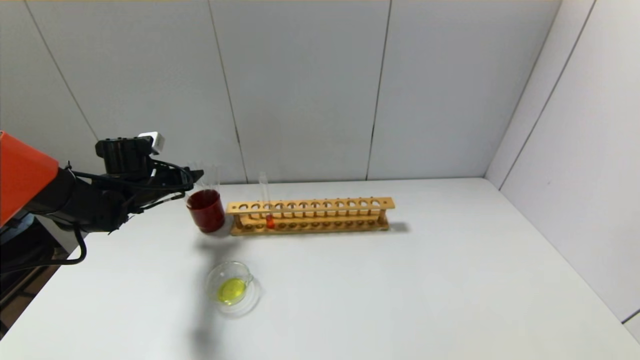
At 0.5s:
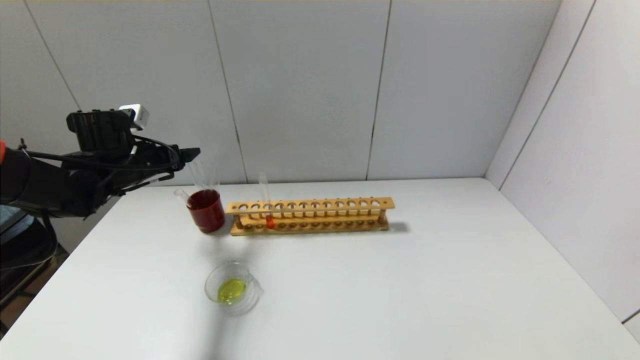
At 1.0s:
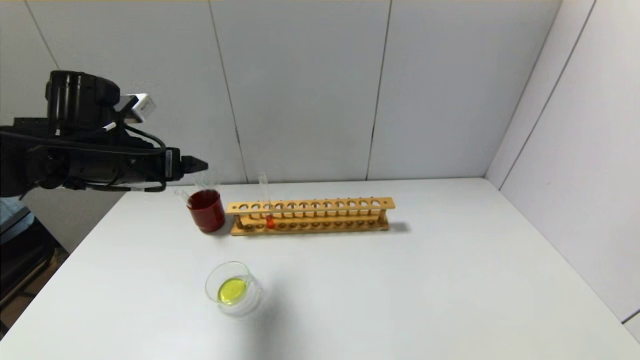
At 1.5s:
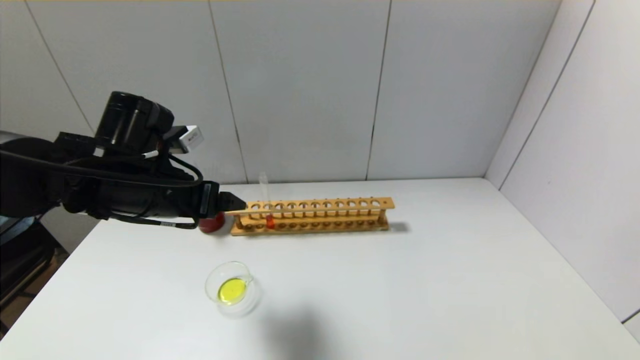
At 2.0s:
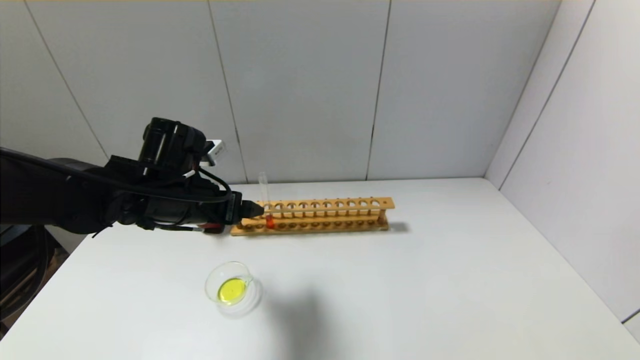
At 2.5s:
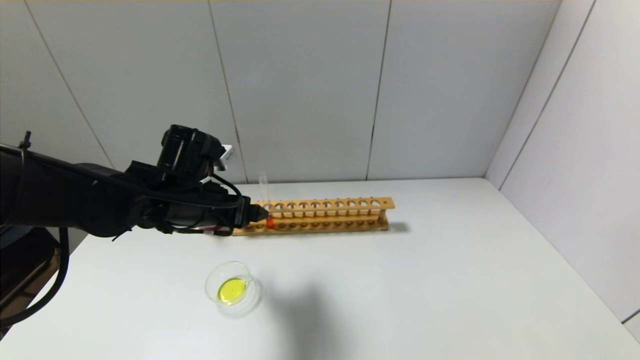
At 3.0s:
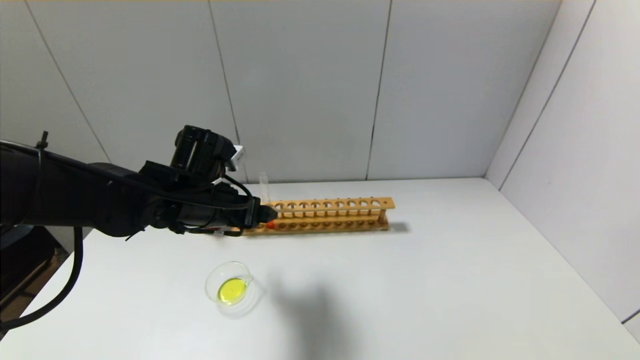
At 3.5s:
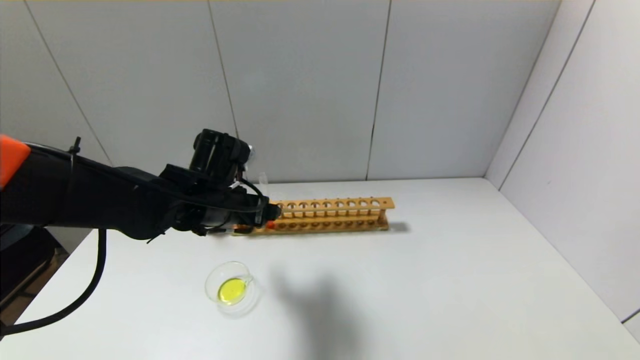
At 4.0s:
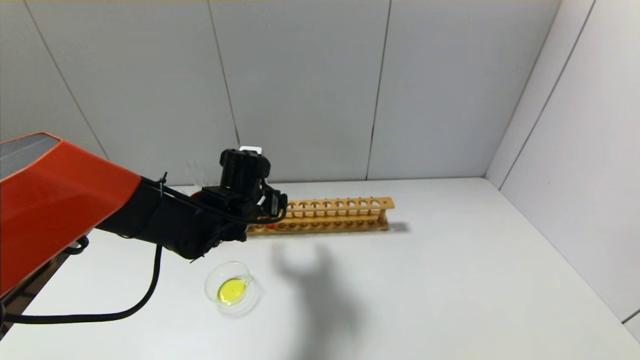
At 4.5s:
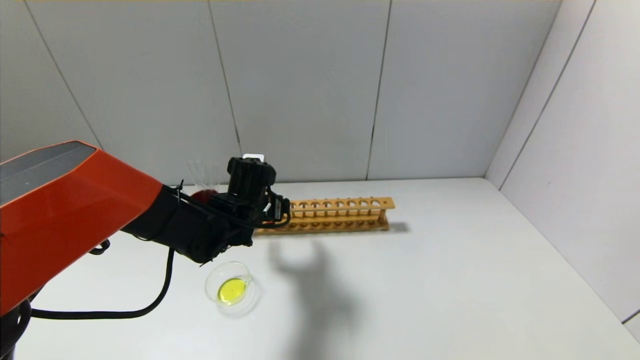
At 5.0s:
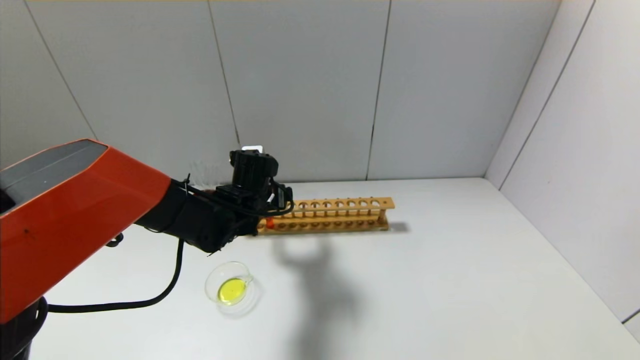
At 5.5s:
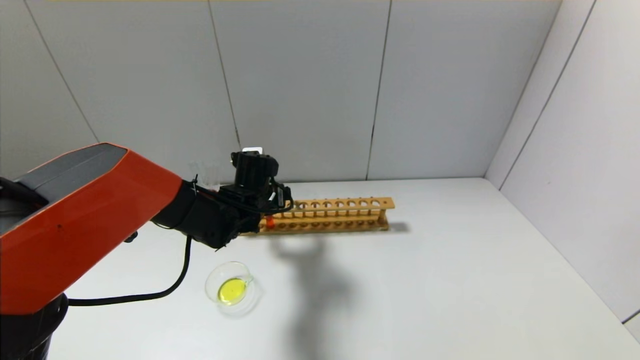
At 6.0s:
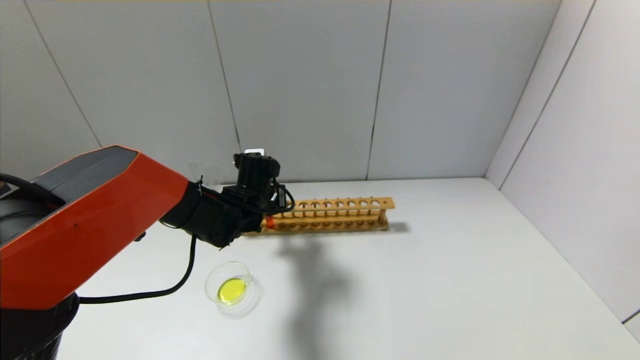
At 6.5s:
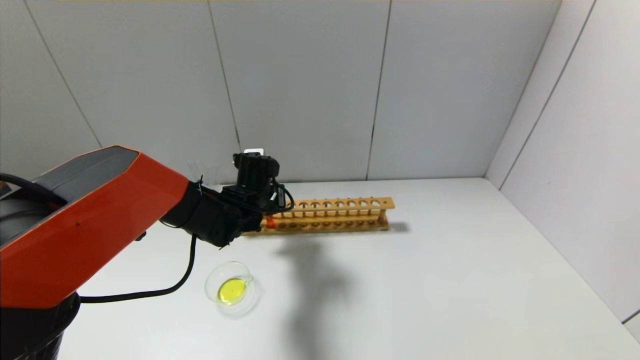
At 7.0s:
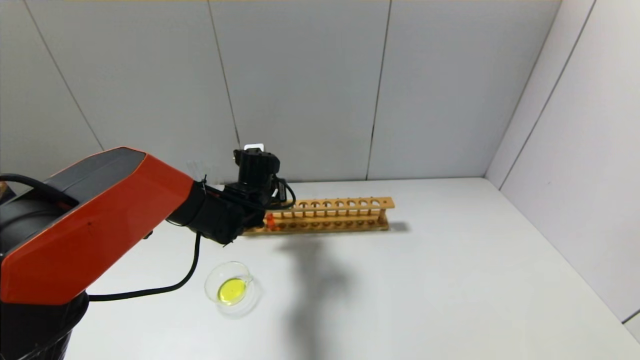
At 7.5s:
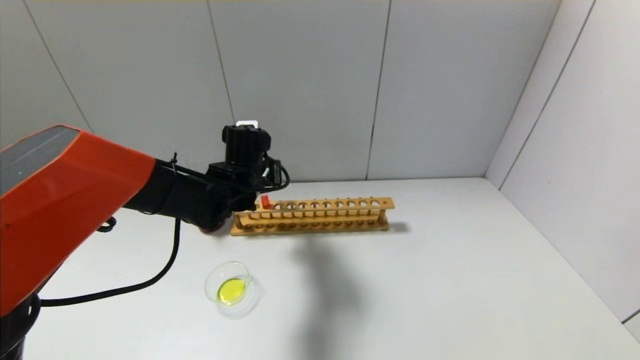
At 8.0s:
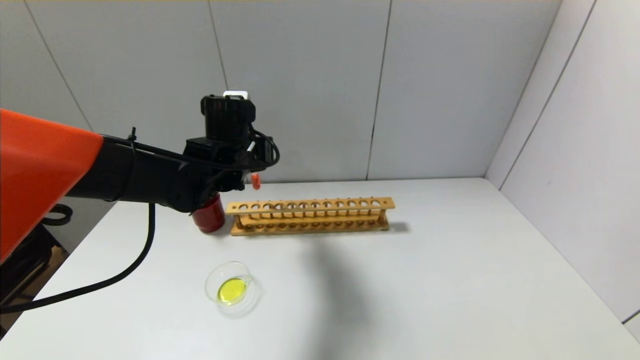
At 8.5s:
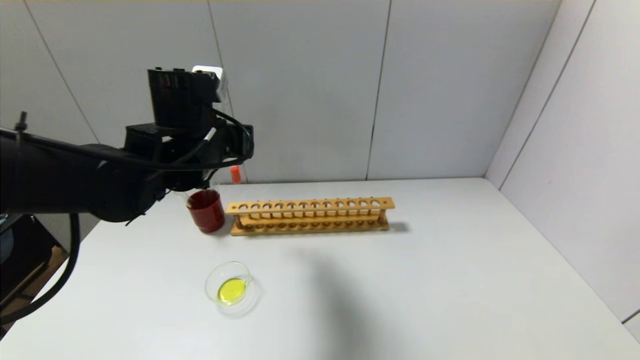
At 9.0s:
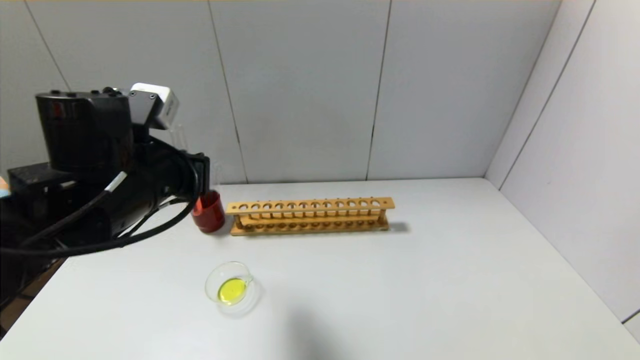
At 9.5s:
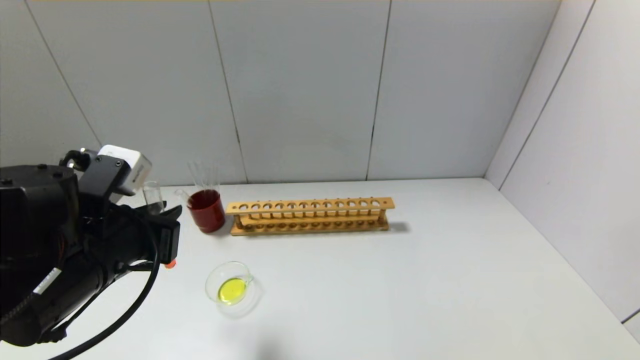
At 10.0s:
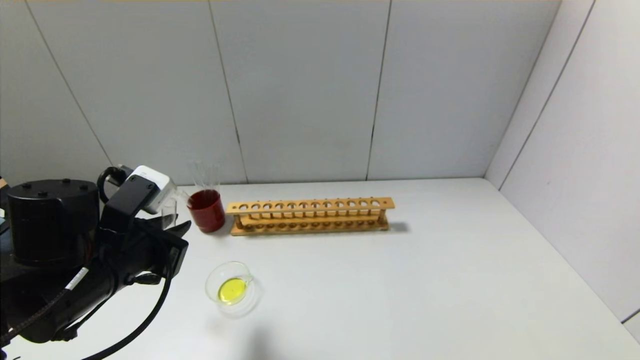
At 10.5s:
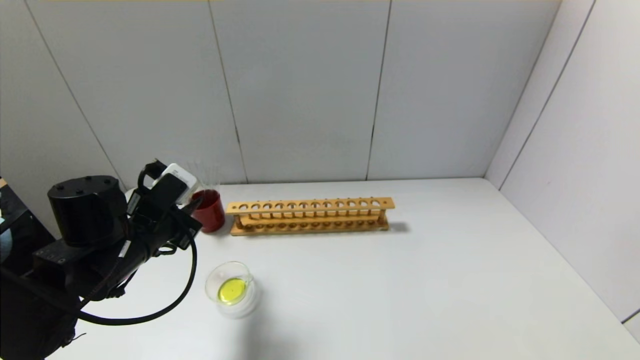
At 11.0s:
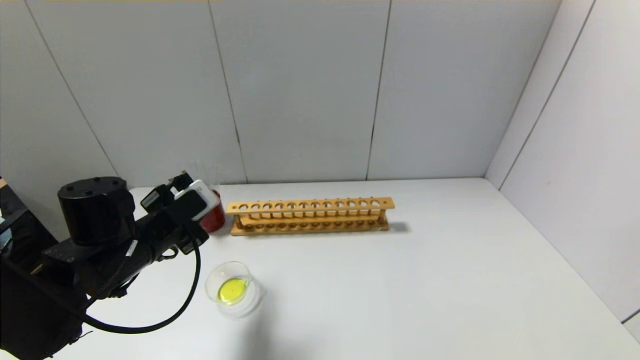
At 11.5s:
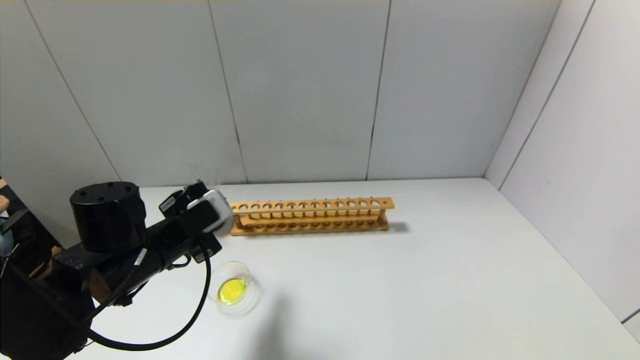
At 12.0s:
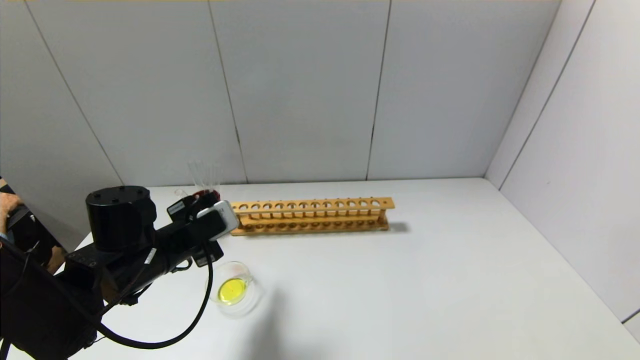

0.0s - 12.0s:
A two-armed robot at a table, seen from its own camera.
Step, 0.0s - 6.0s: Grasp the red reagent with the left gripper.
0.0s - 2.0s: The left gripper is displaced to the right, backward and upward by some 20 cm.
2.0s - 4.0s: The left gripper shifts approximately 10 cm to the right, downward and forward.
4.0s - 6.0s: The left gripper changes place by roughly 5 cm, and closes.
6.0s - 8.0s: The left gripper goes approximately 10 cm upward.
8.0s - 10.0s: The left gripper travels backward and to the left by about 20 cm.
10.0s - 12.0s: The left gripper is displaced forward by about 5 cm.

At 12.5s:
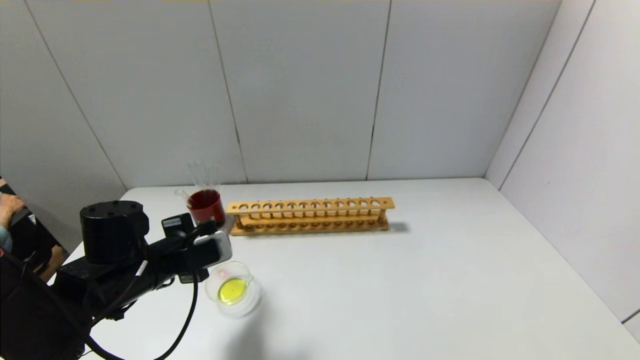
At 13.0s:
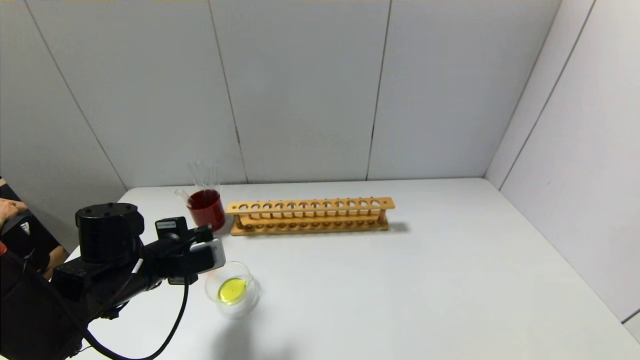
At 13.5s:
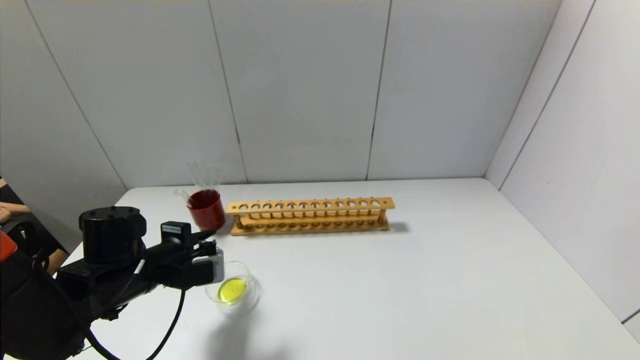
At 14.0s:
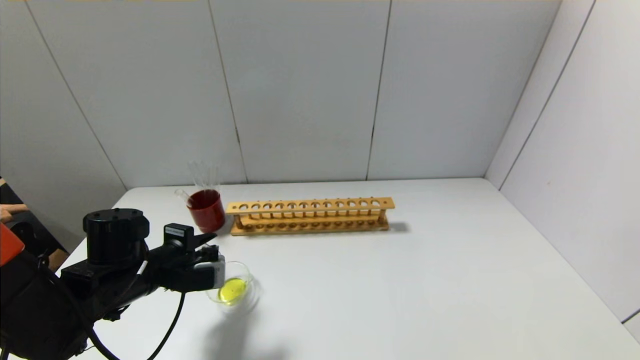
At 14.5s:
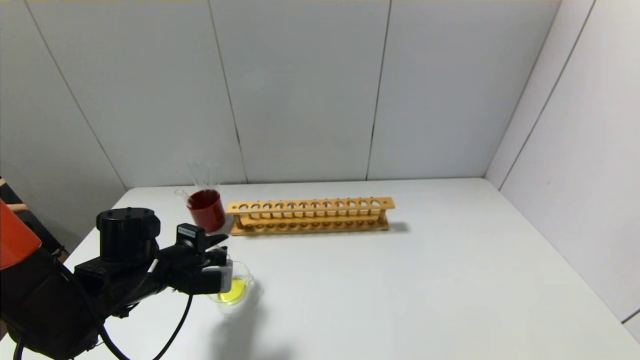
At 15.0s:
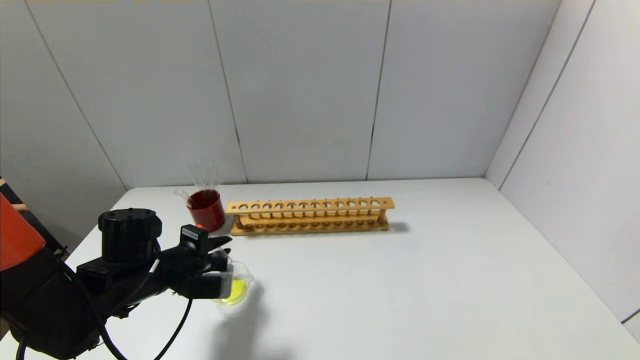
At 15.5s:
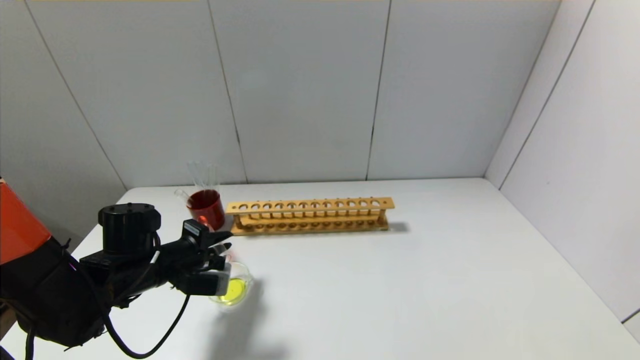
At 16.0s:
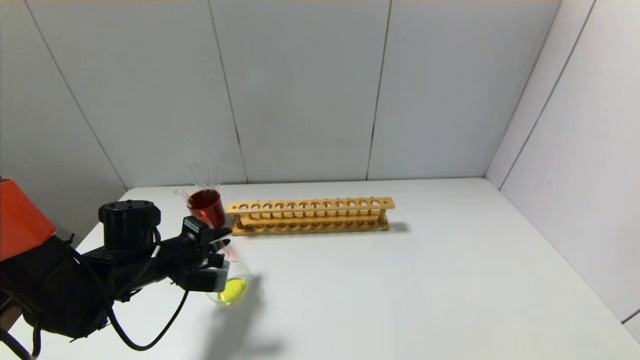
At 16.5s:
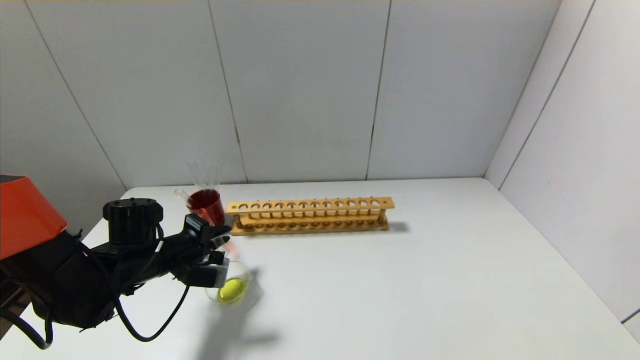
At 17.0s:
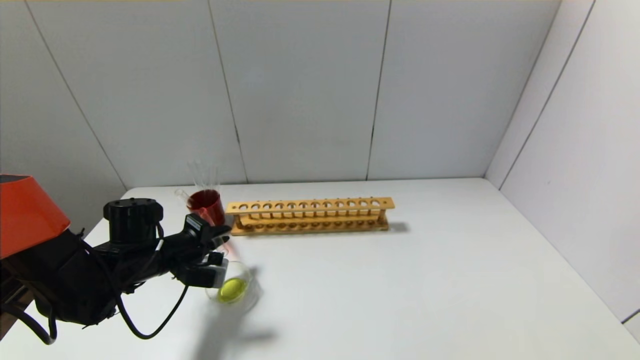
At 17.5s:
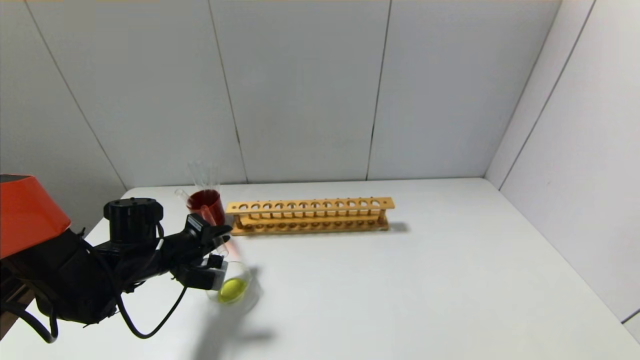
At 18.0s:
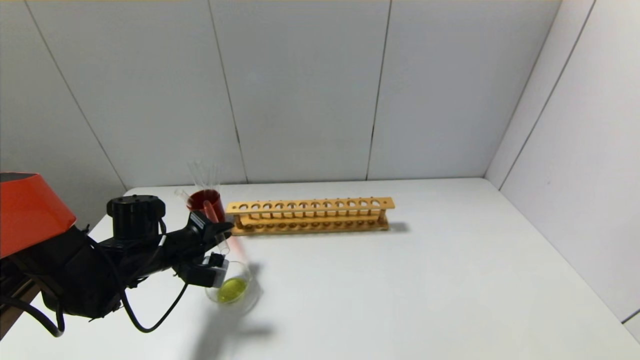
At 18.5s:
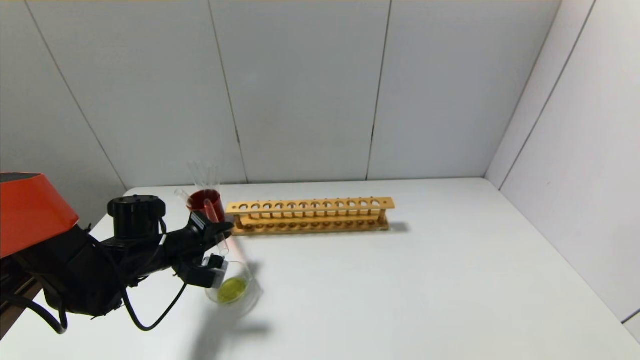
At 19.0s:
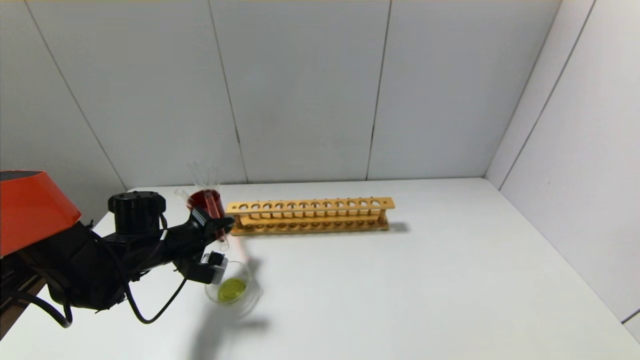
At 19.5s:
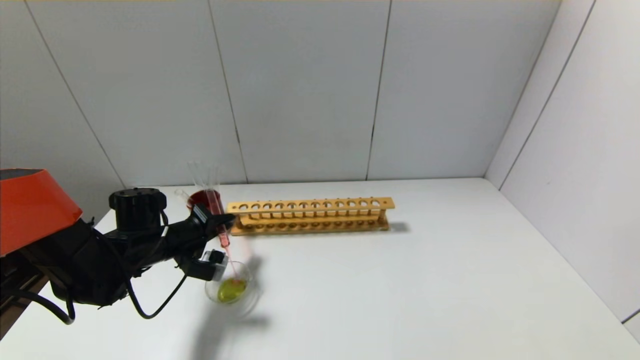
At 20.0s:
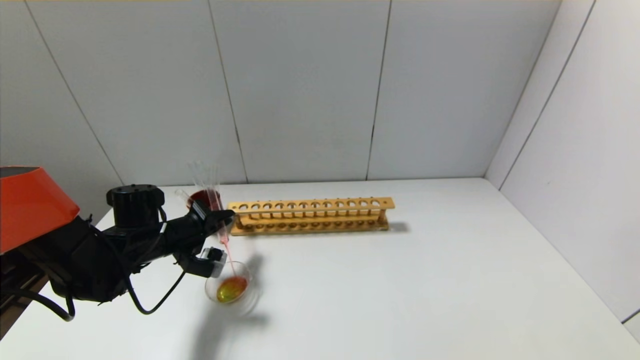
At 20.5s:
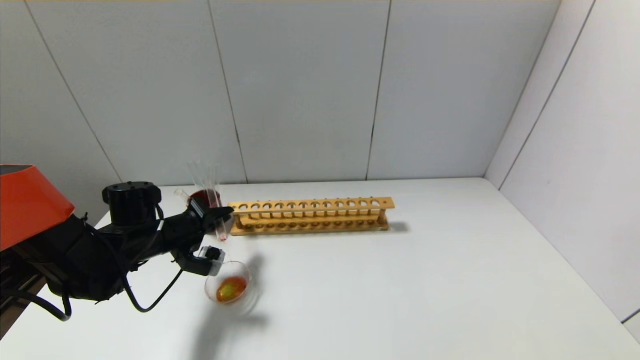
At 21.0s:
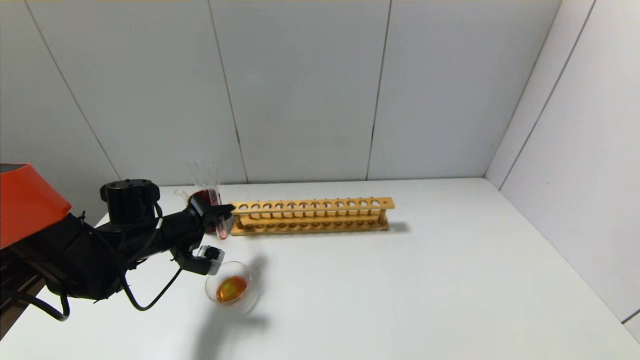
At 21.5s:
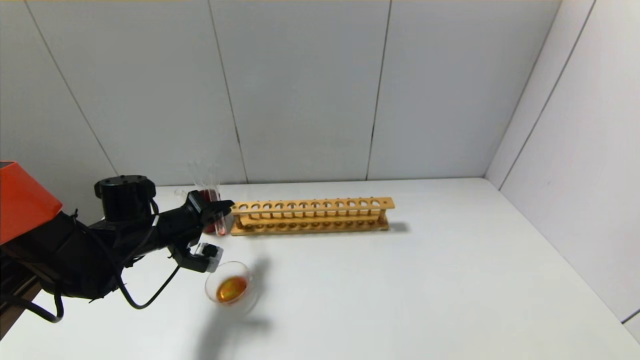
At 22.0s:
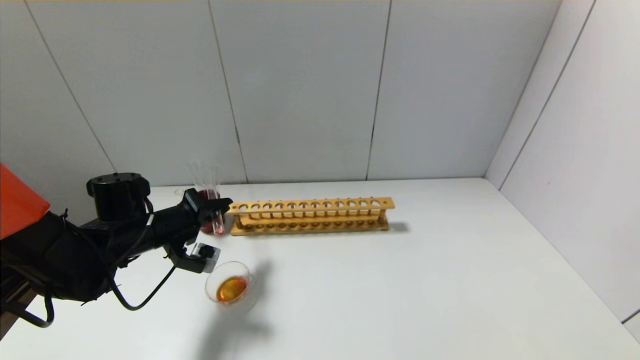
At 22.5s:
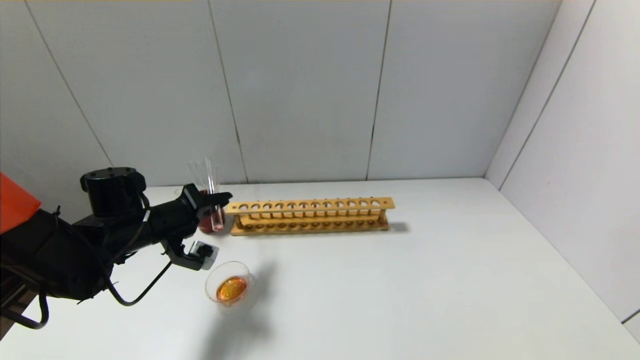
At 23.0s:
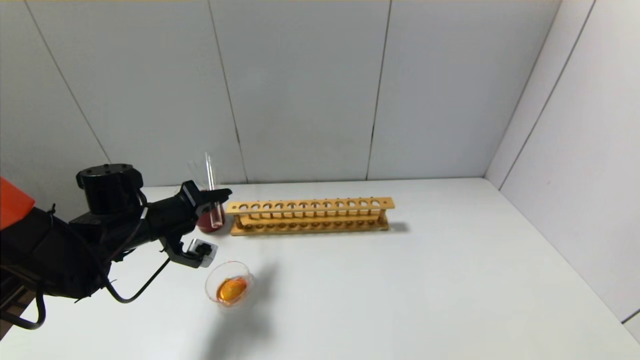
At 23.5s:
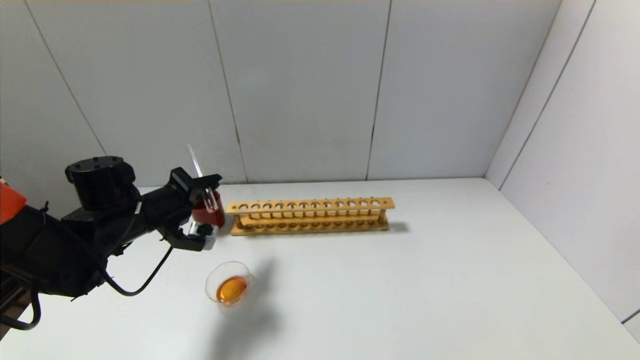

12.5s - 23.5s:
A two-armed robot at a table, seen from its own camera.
Step, 12.5s - 23.5s: Pour the red reagent into the graduated cylinder with the left gripper.
14.5s - 18.0s: The grippers stay close to where they were, moving slightly.
18.0s - 21.5s: There are only small adjustments of the grippers.
21.5s - 23.5s: The grippers make only small movements.
